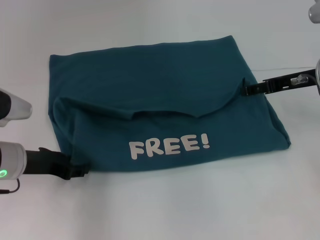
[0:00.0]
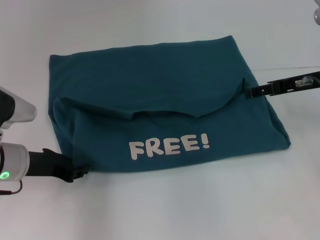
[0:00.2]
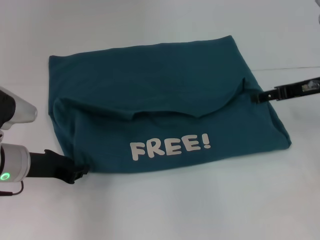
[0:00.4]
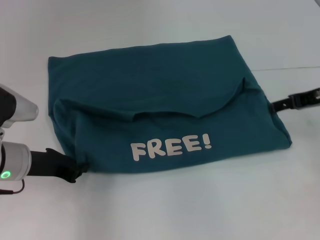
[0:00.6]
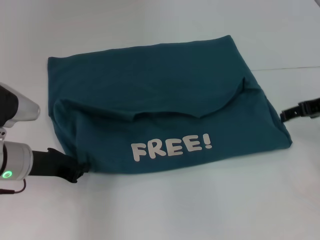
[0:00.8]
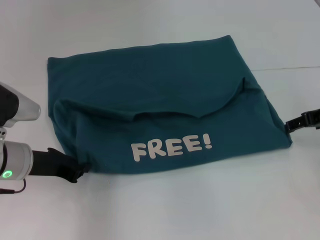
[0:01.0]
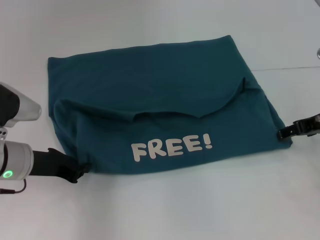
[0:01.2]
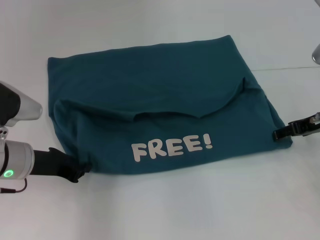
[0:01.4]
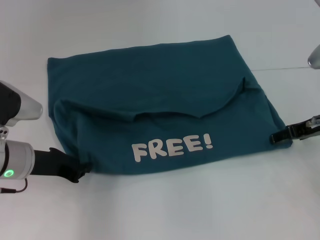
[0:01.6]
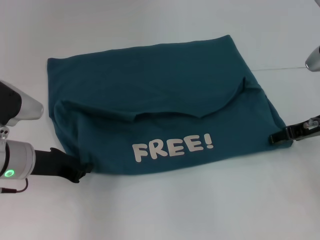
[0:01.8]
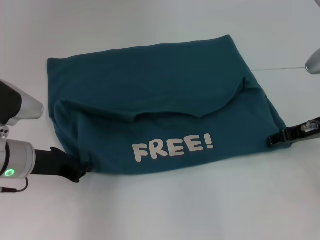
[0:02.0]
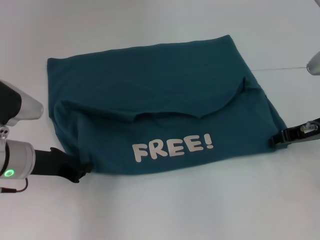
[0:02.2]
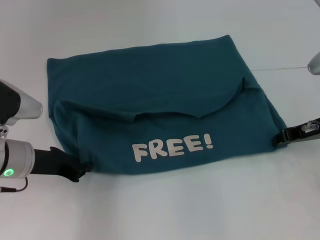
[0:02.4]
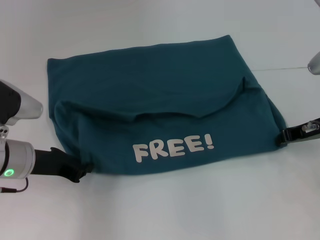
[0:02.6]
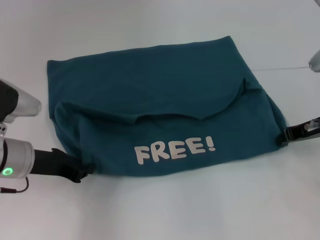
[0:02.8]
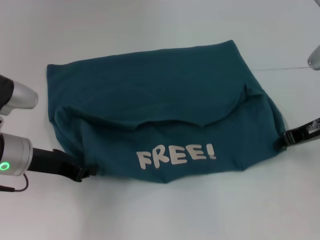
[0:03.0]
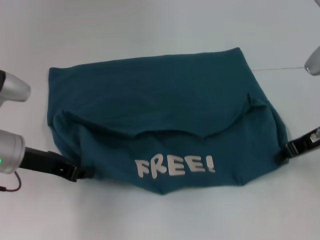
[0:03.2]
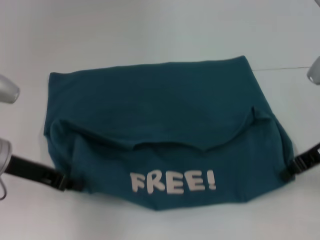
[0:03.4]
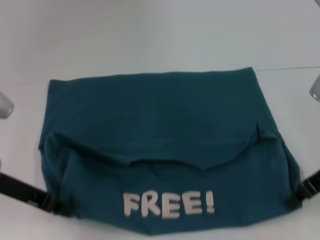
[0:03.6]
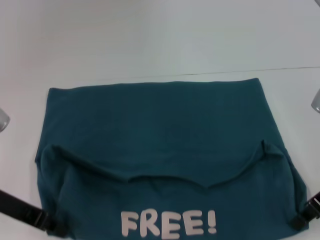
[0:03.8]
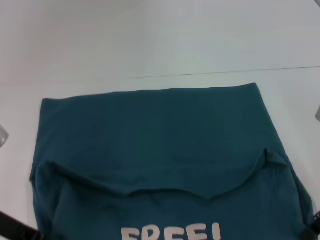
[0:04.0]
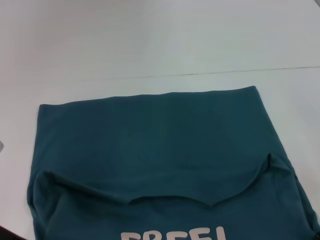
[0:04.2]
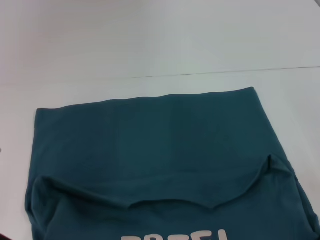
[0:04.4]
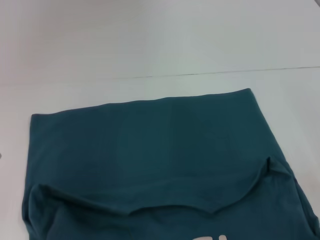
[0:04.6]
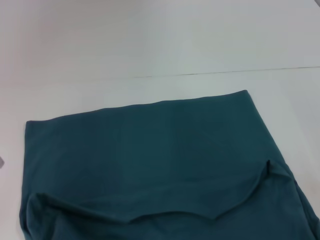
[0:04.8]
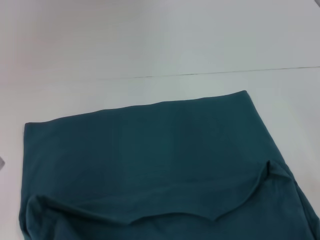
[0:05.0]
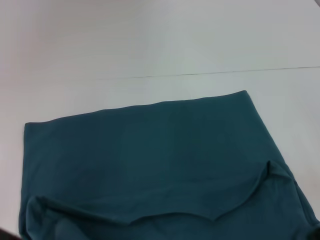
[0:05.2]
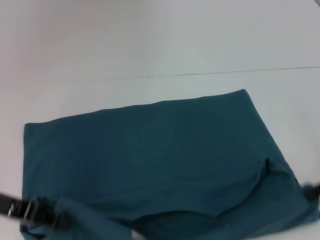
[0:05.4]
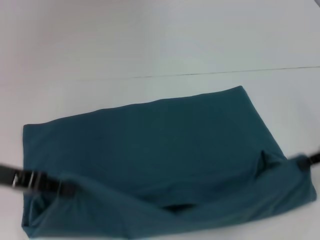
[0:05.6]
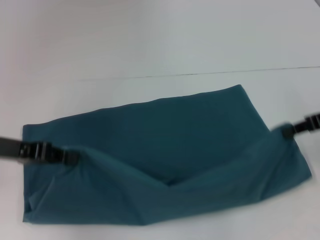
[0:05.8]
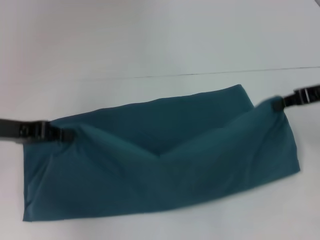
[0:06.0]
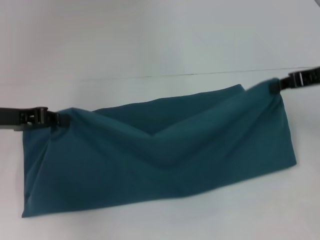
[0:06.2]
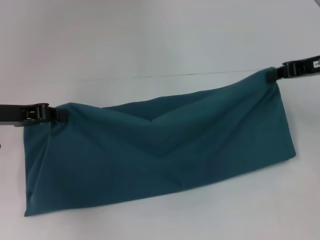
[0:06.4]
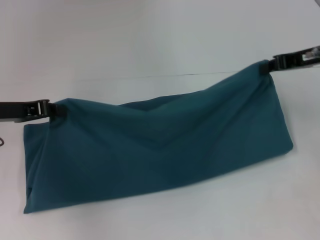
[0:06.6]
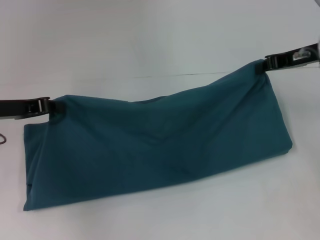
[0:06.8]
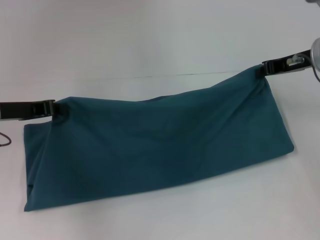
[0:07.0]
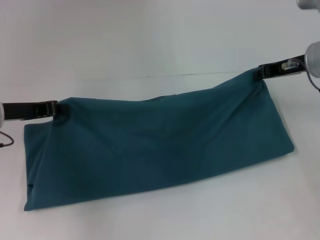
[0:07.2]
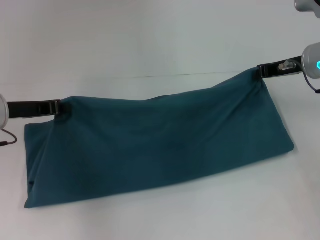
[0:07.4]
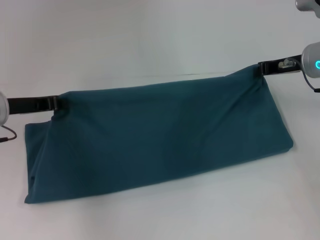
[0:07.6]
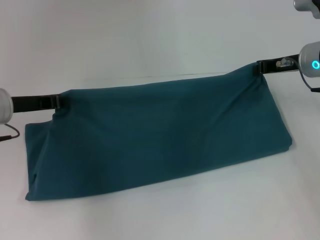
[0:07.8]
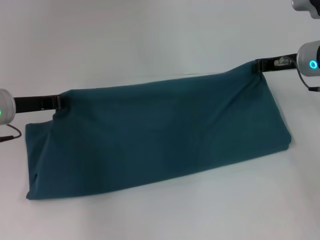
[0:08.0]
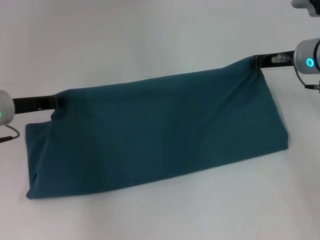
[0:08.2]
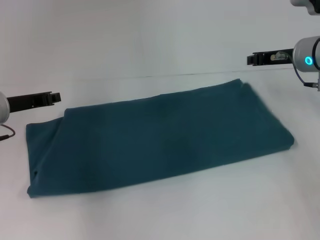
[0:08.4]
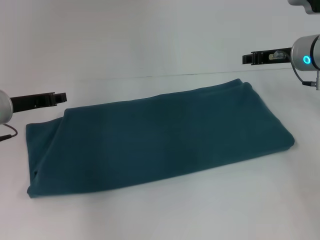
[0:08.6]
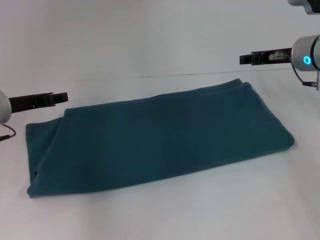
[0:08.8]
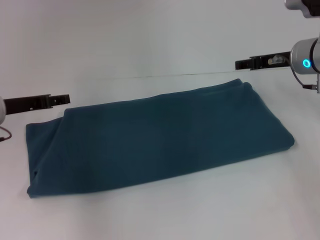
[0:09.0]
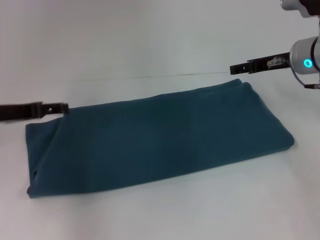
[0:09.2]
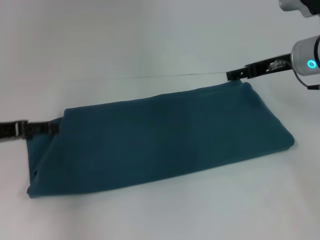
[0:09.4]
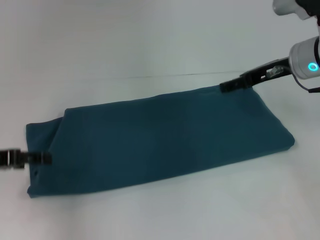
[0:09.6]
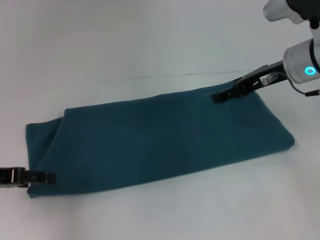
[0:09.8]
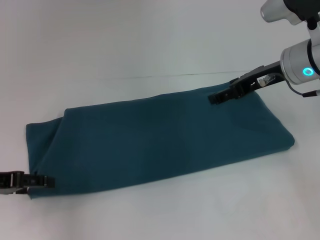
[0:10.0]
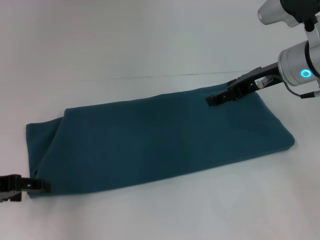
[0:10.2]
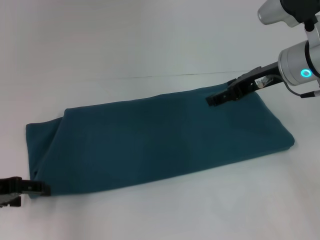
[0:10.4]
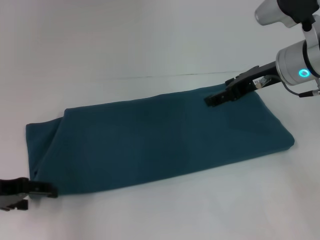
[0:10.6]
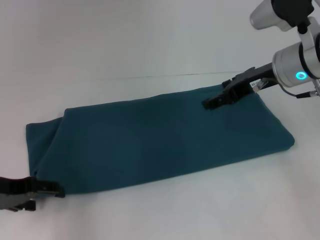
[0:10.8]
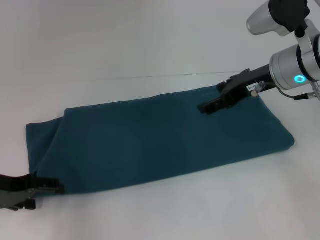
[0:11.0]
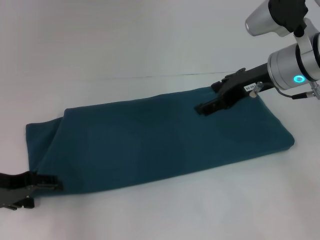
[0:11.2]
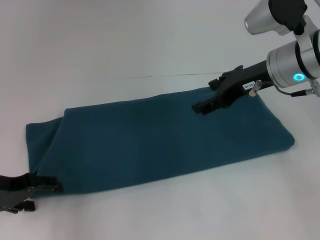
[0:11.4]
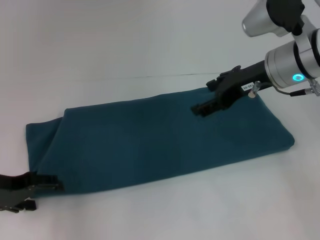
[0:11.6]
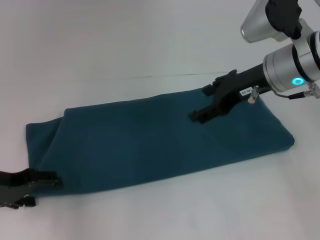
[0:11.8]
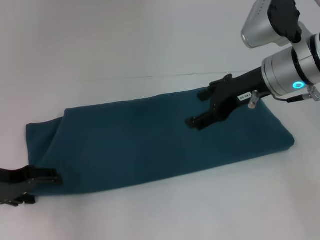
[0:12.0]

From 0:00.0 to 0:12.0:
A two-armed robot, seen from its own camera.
Step, from 0:00.0 to 0:04.4: Pull the clothes with your left hand.
Step, from 0:00.0 to 0:04.4: Pull the clothes with your right hand.
Step, from 0:04.6 to 0:08.2: Fold the clothes to the left.
From 0:00.0 to 0:01.6: The left gripper closes its fingers. Meanwhile the right gripper shifts by about 5 cm.
From 0:01.6 to 0:03.0: The right gripper closes its fingers.
From 0:03.0 to 0:04.4: Both grippers travel together backward, some 5 cm.
From 0:04.4 to 0:06.0: The right gripper heads forward and upward, covering about 10 cm. The left gripper shifts some 5 cm forward.
From 0:06.0 to 0:07.6: The right gripper moves forward, approximately 5 cm. The left gripper ends up about 5 cm from where it was.
From 0:07.6 to 0:09.0: The right gripper opens its fingers, while the left gripper opens its fingers.
From 0:09.0 to 0:10.4: The left gripper is displaced backward by some 10 cm, while the right gripper changes place by approximately 5 cm, and opens its fingers.

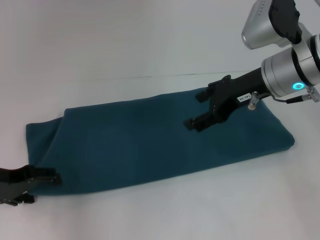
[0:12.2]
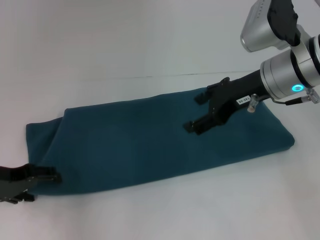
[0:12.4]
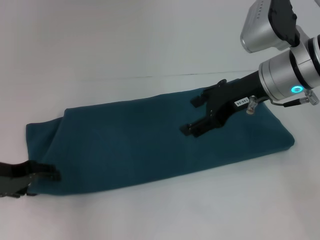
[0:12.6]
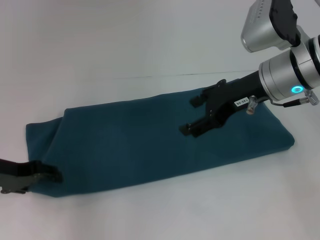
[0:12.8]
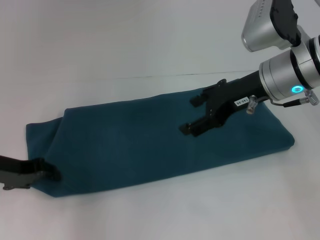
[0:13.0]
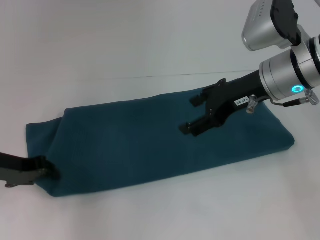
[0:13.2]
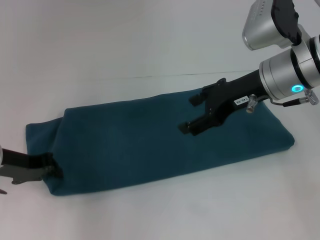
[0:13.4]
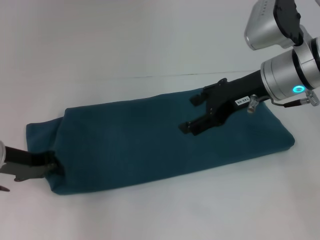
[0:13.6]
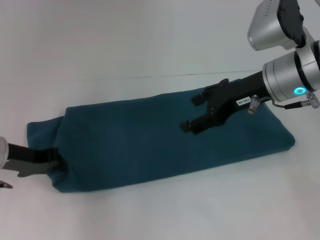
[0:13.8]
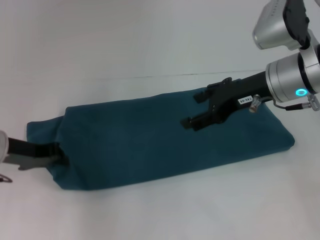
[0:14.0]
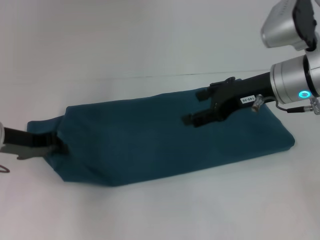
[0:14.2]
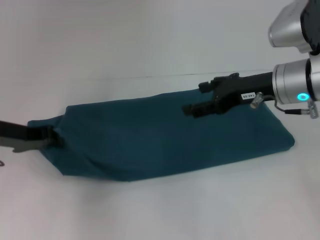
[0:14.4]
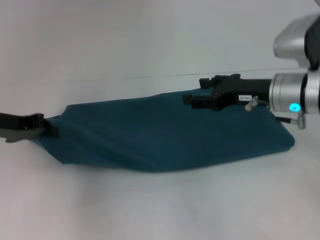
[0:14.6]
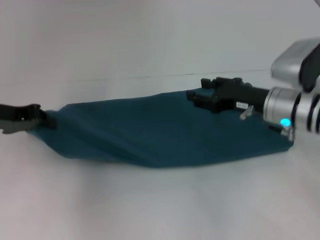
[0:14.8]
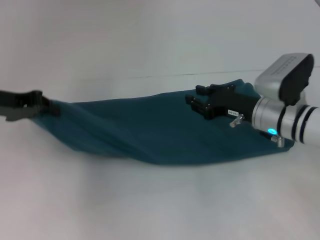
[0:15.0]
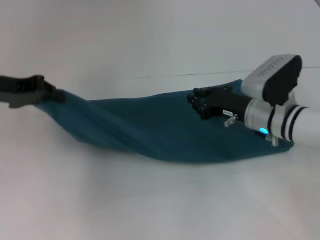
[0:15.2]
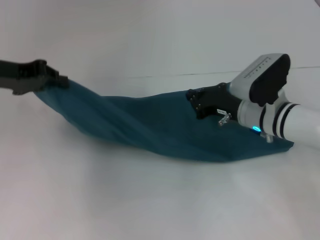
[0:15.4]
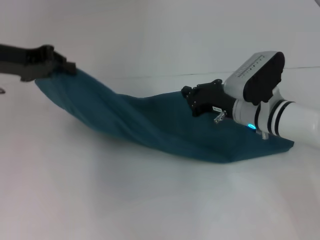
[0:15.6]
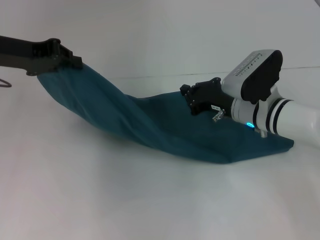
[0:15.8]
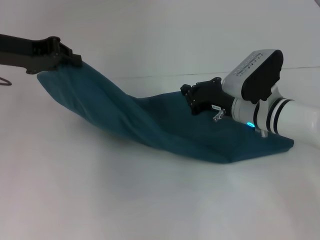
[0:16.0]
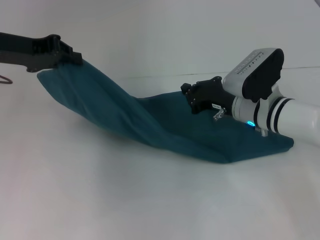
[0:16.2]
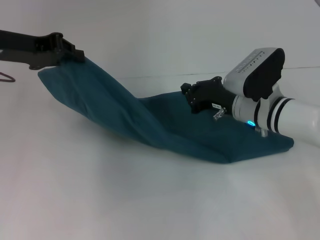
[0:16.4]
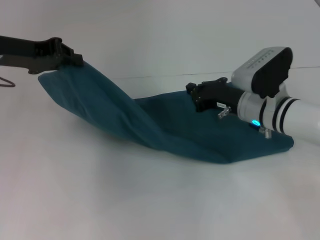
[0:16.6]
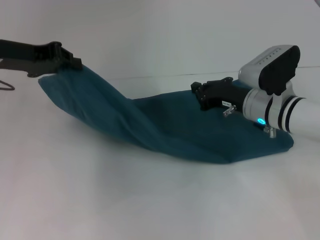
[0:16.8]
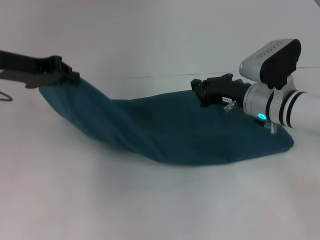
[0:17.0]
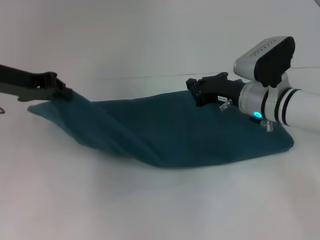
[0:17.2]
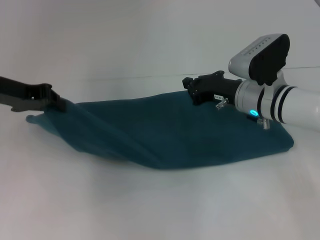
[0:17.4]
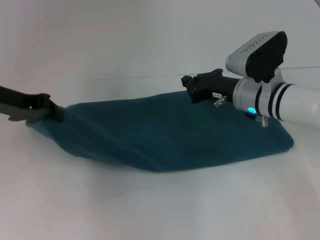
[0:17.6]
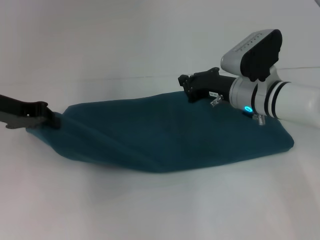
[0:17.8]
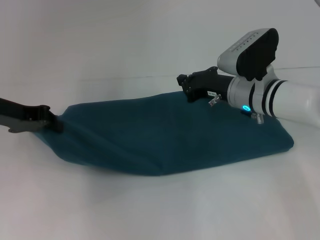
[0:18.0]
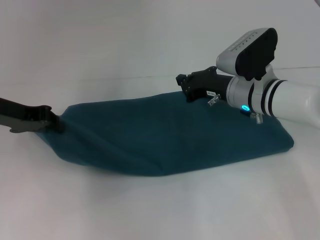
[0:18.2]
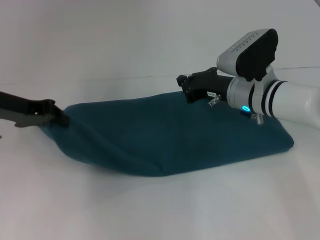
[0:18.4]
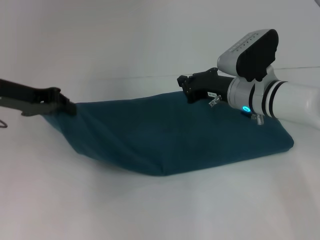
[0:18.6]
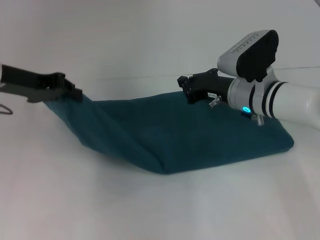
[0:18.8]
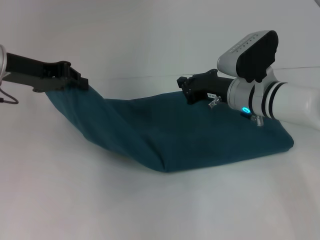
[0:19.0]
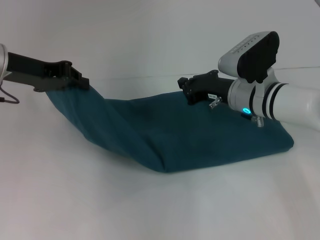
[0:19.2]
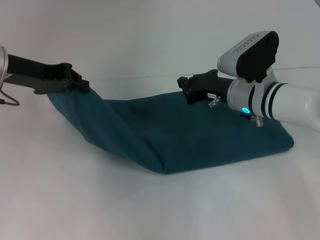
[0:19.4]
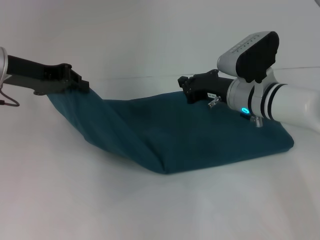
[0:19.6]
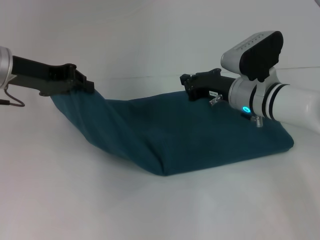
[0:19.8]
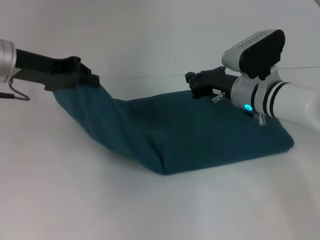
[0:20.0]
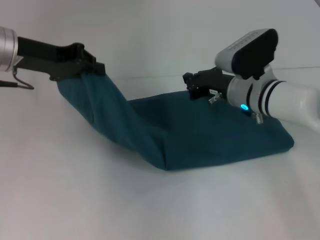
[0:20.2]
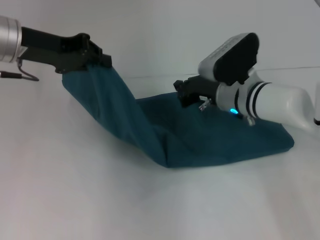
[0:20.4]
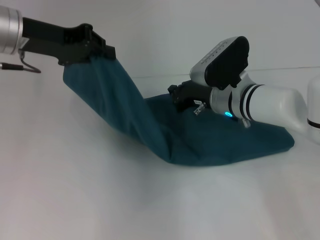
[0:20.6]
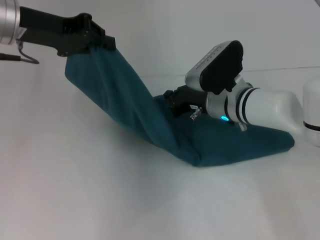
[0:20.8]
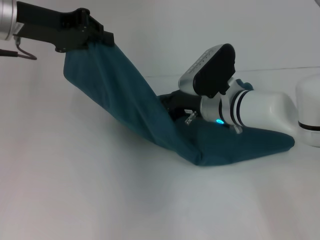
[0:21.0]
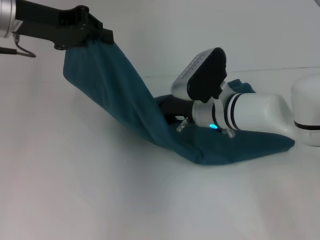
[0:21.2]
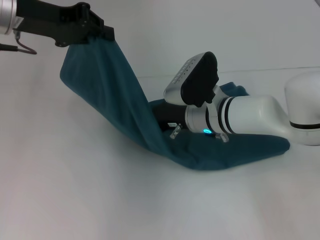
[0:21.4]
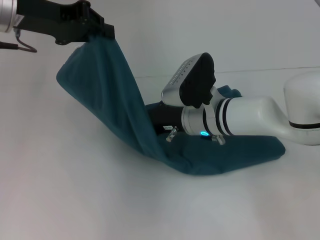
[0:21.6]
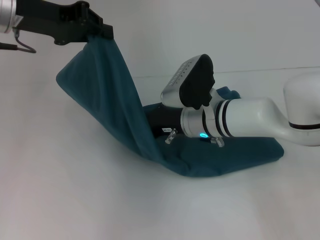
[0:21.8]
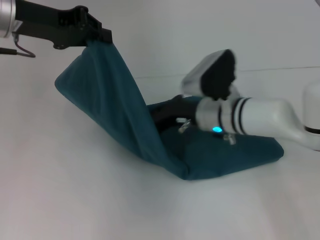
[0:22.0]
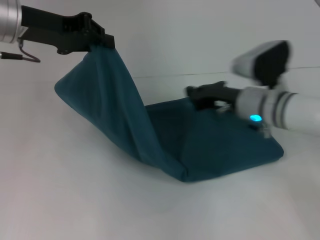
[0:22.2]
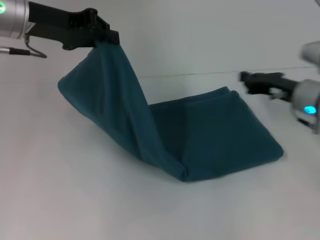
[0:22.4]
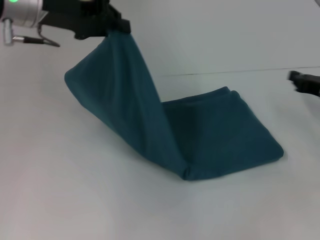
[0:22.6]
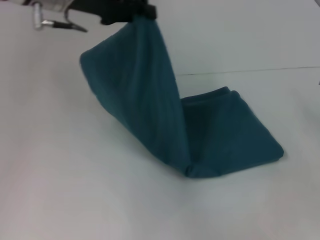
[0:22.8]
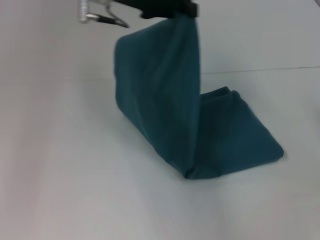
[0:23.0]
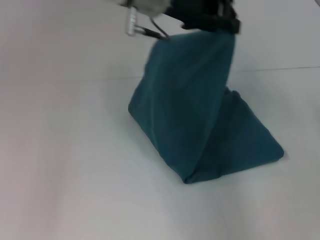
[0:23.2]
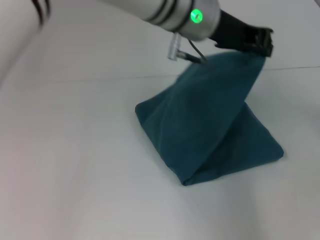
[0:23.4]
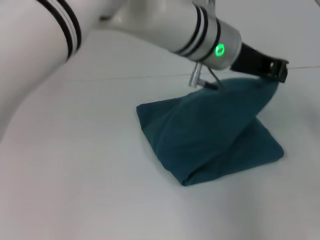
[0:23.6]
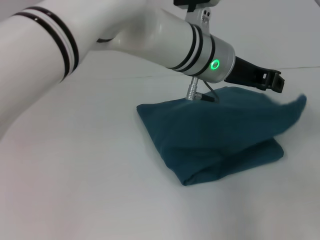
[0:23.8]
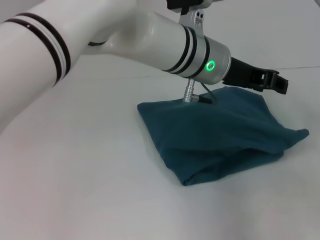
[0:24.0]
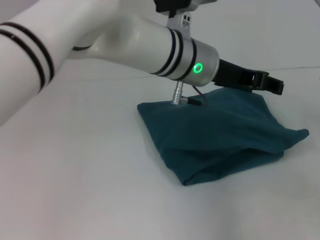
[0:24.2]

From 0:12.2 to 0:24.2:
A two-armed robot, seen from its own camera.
Step, from 0:12.2 to 0:23.8: Fold the clothes to the left.
From 0:12.2 to 0:13.8: The left gripper closes up.
From 0:13.8 to 0:15.2: The right gripper moves downward, approximately 15 cm, and closes up; the left gripper shifts approximately 10 cm upward.
From 0:15.2 to 0:16.6: The right gripper closes.
From 0:16.6 to 0:18.2: The left gripper goes about 5 cm downward.
From 0:18.2 to 0:19.8: The left gripper ends up about 5 cm from where it was.
From 0:19.8 to 0:21.2: The right gripper is displaced to the left by some 5 cm. The left gripper goes approximately 5 cm upward.
From 0:21.2 to 0:22.6: The right gripper goes roughly 25 cm to the right.
From 0:22.6 to 0:24.2: The left gripper goes approximately 20 cm to the right, and opens.
